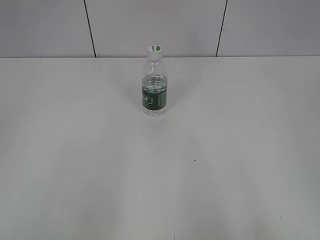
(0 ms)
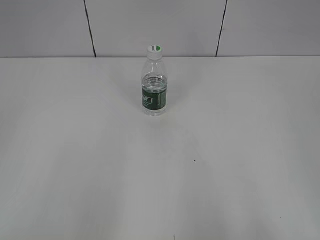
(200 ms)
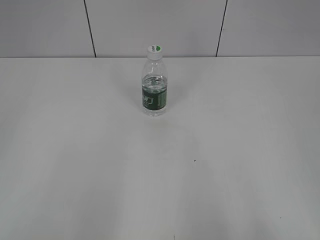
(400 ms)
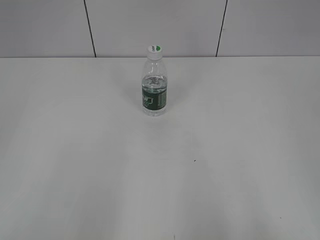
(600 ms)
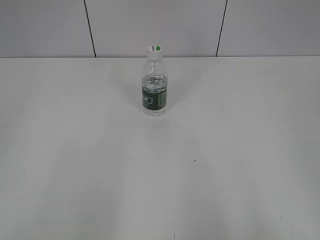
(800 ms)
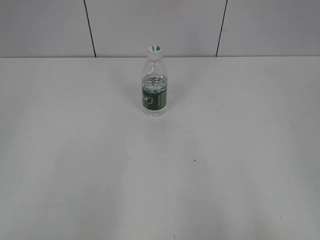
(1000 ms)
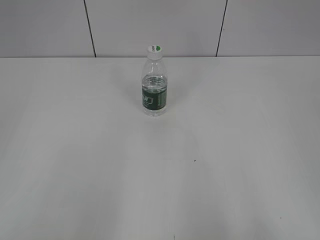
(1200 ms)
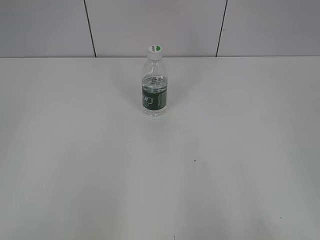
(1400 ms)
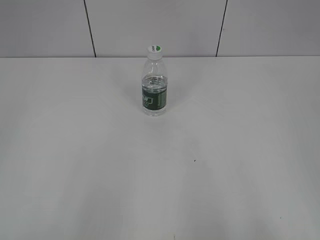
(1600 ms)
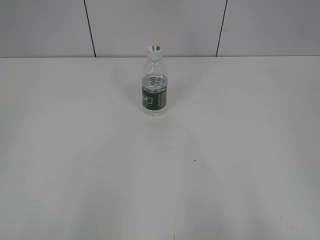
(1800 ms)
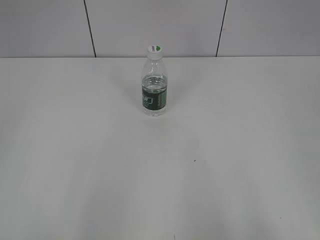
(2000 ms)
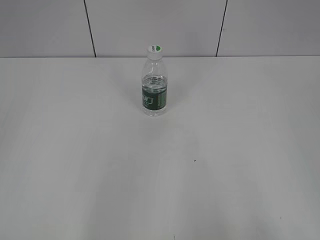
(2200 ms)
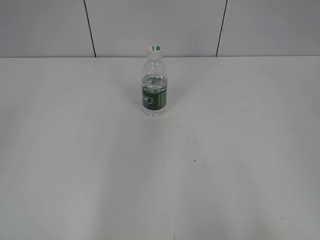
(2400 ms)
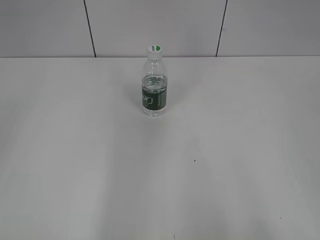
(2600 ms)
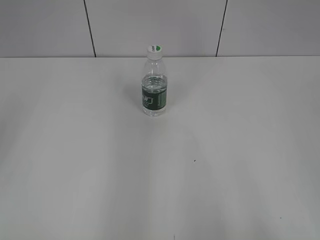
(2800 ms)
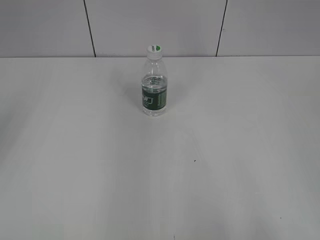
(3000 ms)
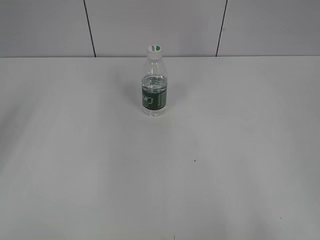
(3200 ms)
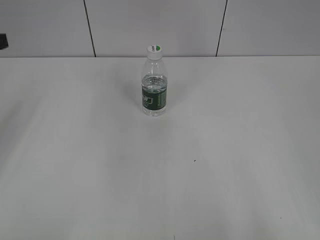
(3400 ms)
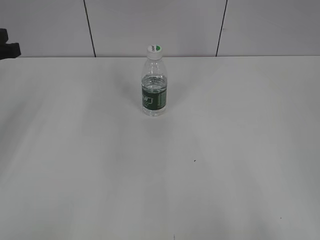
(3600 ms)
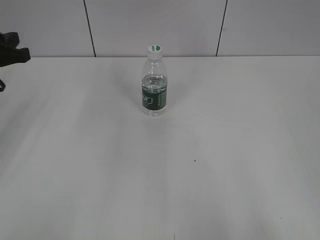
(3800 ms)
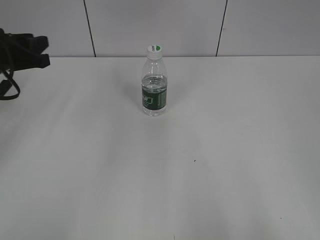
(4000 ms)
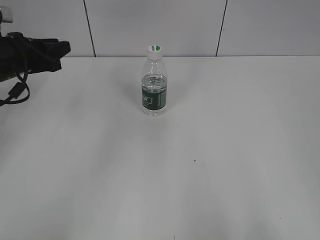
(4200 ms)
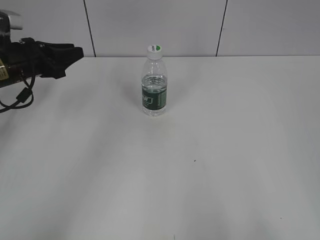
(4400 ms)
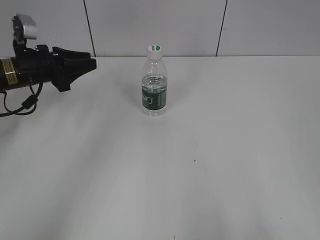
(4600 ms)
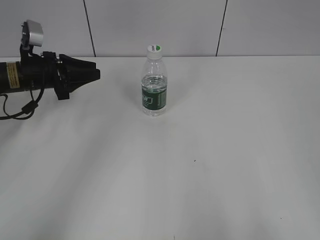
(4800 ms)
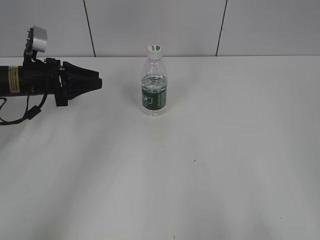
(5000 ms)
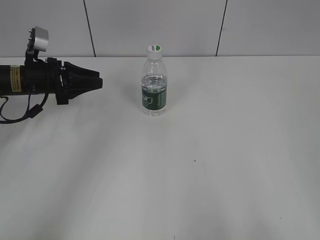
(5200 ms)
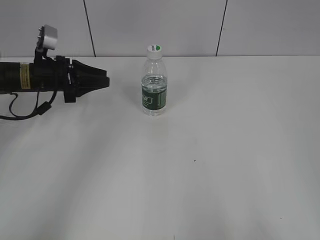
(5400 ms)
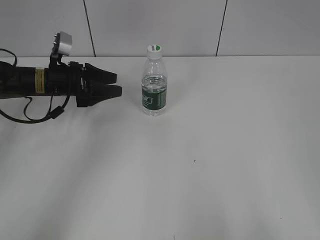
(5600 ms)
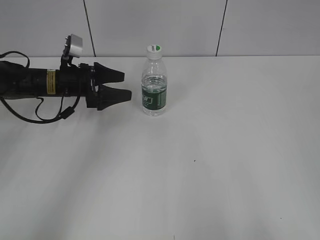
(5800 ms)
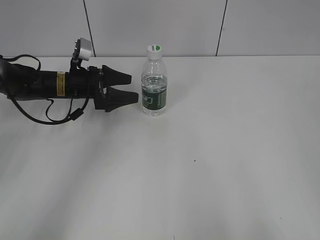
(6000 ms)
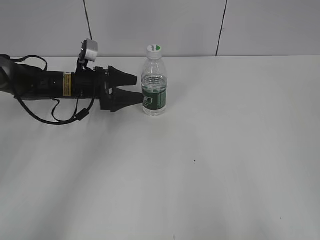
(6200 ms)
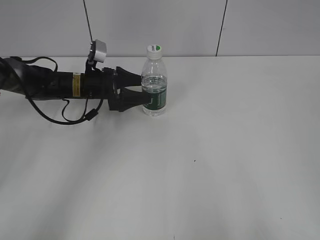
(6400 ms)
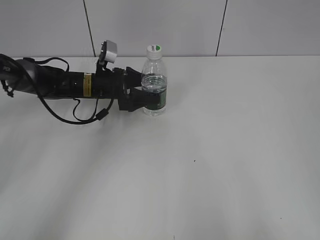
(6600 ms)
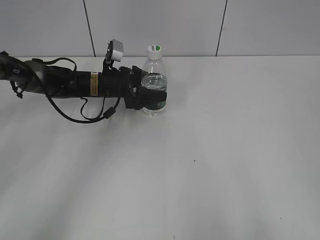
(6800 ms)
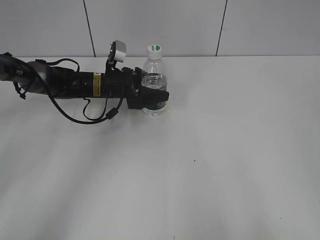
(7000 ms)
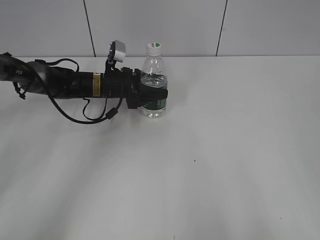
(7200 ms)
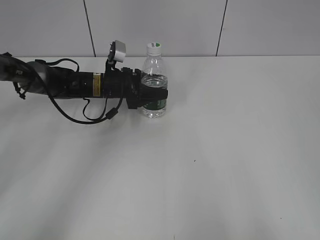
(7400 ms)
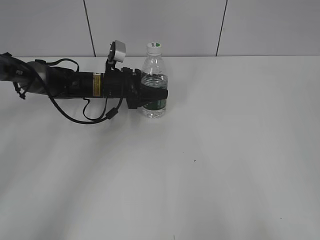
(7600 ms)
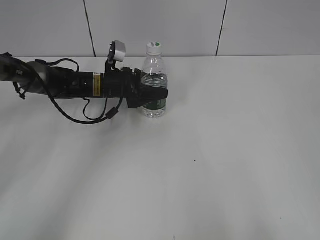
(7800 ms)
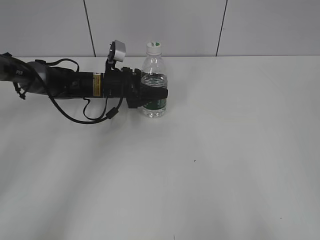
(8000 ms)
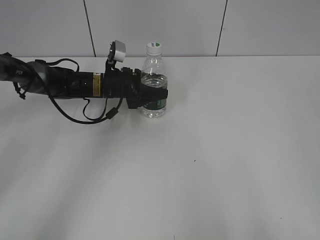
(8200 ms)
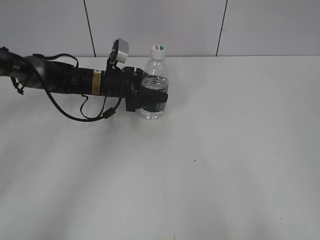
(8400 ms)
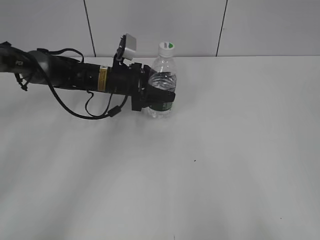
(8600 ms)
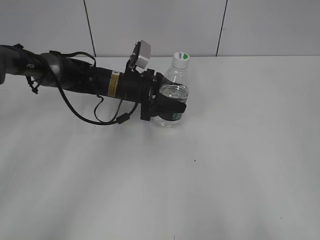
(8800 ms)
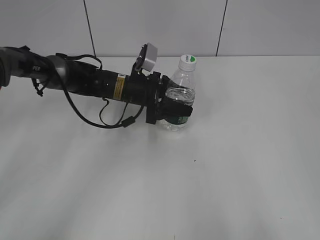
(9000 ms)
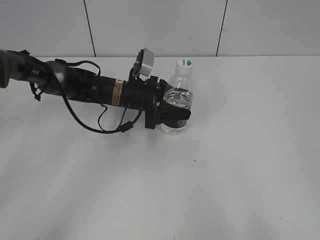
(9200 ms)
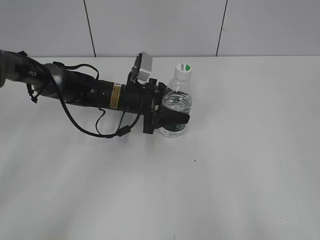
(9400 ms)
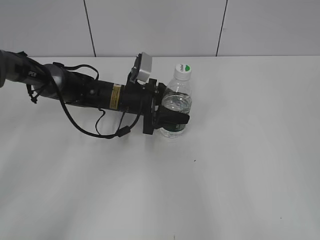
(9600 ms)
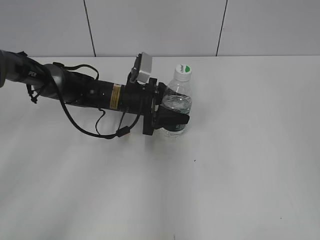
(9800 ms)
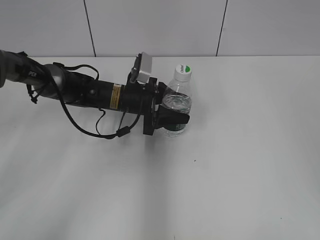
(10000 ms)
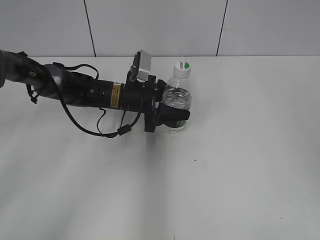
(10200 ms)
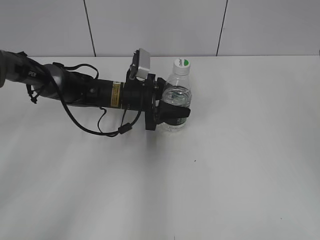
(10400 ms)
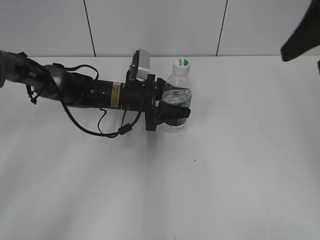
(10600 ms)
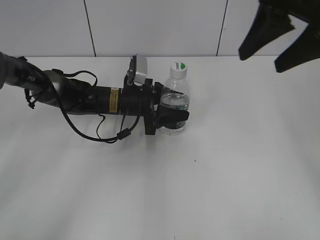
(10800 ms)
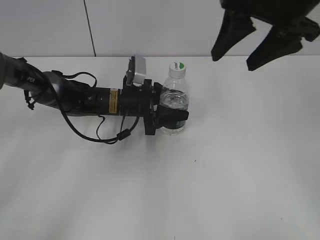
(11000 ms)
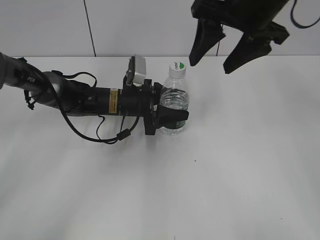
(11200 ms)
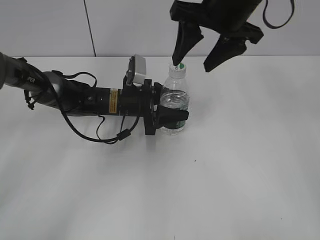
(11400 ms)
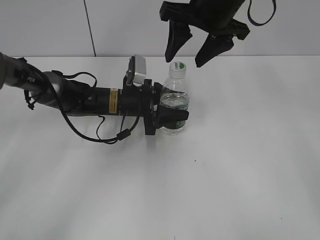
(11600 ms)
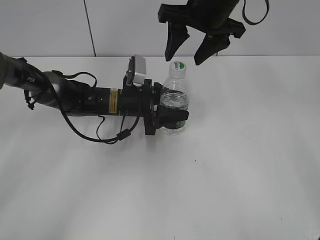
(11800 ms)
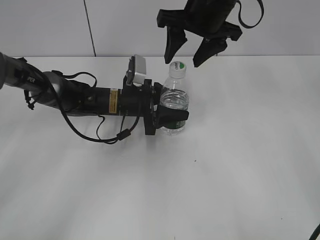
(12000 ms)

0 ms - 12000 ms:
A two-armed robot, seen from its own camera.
Step, 0 ms - 7200 ms: Grasp the bottle and move it to the center of the table with the left gripper.
Step, 7400 ms - 11800 ms: Lift the bottle and move it to the center of the table with the left gripper.
3000 ms - 4400 ms: The left gripper heads forward and downward, covering some 25 cm.
4400 ms - 6000 ms: The left gripper moves to the right, downward and forward, about 10 cm, and opens.
6000 ms - 7600 ms: The left gripper is displaced to the right by roughly 5 cm, and closes its fingers.
7600 ms - 9000 ms: The left gripper moves to the right, about 5 cm.
9000 ms - 10400 ms: The right gripper shifts some 25 cm forward.
10400 ms - 12000 ms: The right gripper travels to the left, forward and downward by some 25 cm.

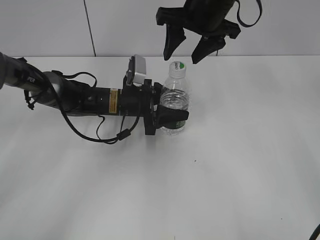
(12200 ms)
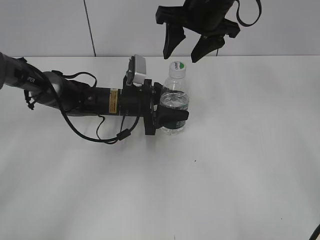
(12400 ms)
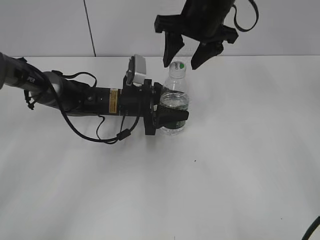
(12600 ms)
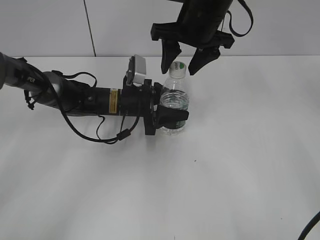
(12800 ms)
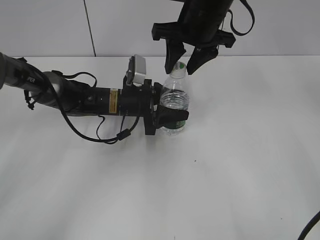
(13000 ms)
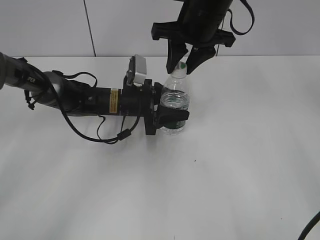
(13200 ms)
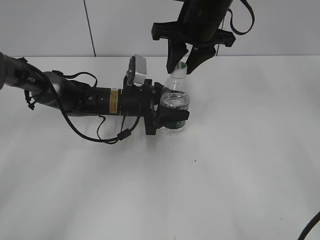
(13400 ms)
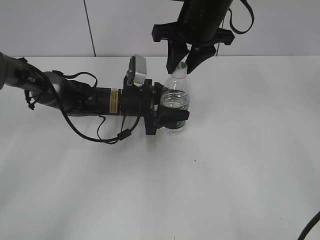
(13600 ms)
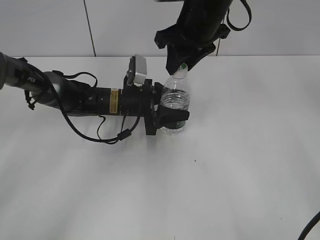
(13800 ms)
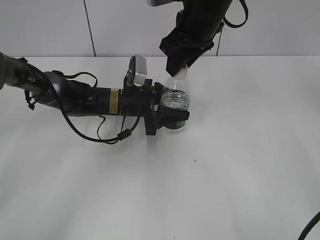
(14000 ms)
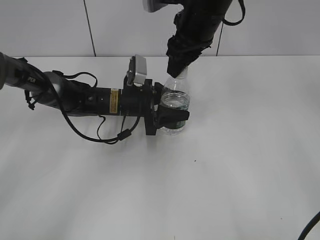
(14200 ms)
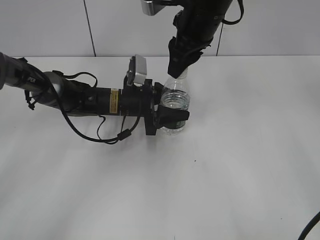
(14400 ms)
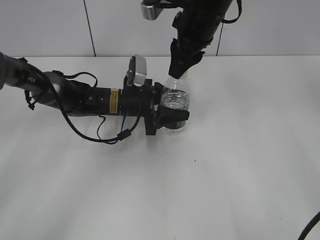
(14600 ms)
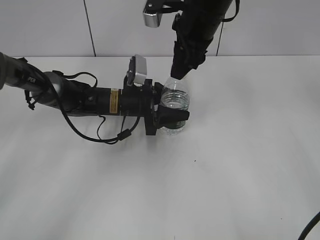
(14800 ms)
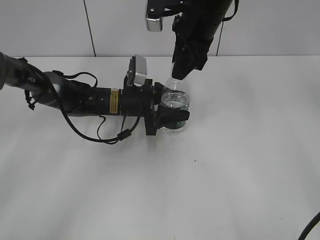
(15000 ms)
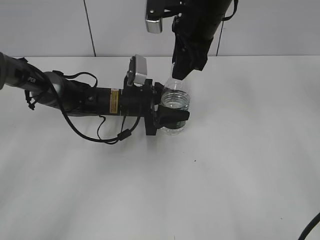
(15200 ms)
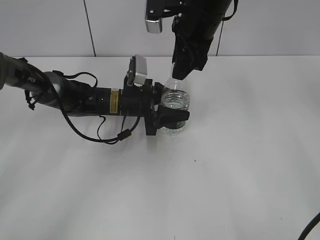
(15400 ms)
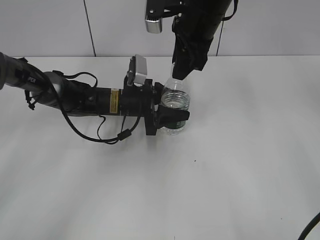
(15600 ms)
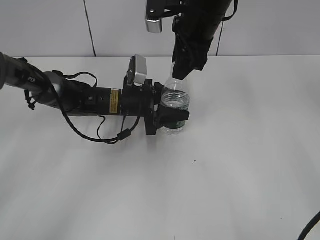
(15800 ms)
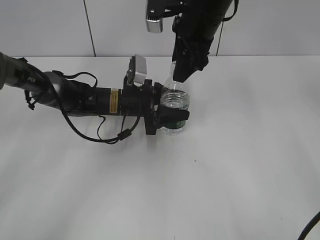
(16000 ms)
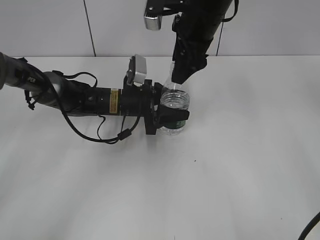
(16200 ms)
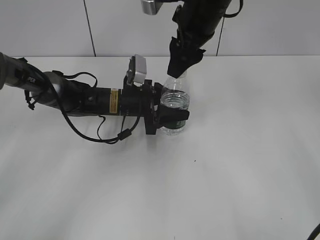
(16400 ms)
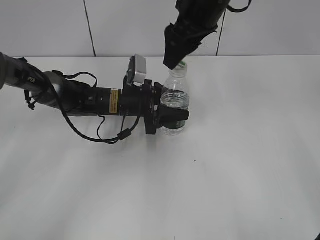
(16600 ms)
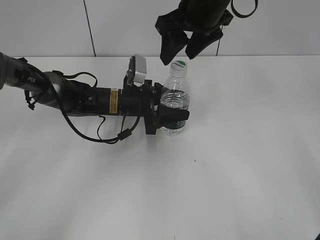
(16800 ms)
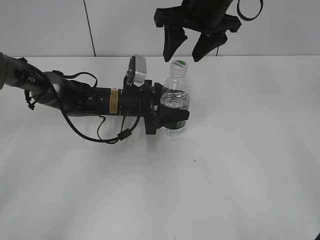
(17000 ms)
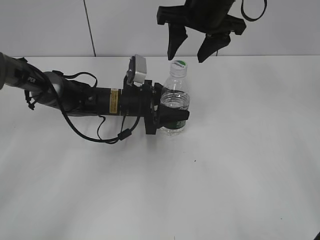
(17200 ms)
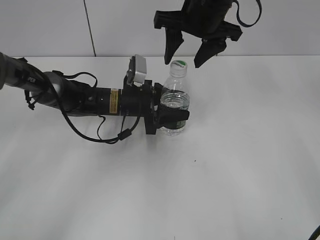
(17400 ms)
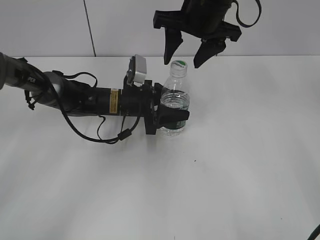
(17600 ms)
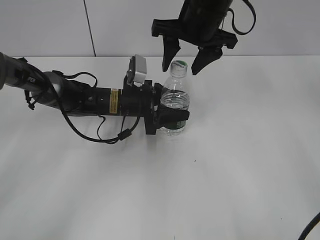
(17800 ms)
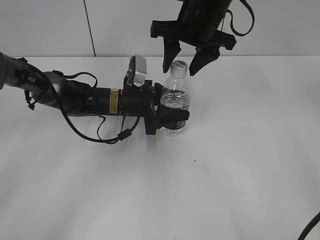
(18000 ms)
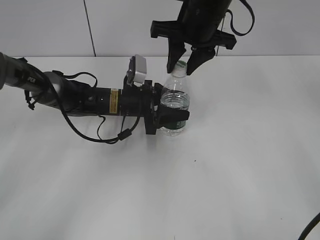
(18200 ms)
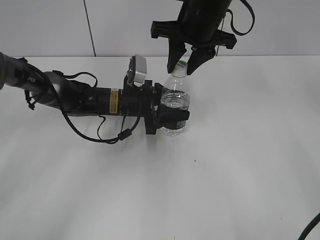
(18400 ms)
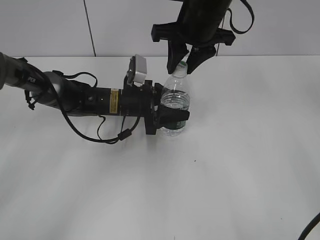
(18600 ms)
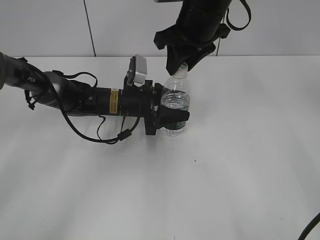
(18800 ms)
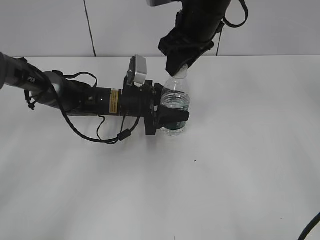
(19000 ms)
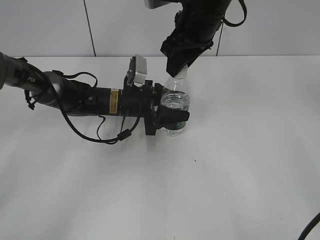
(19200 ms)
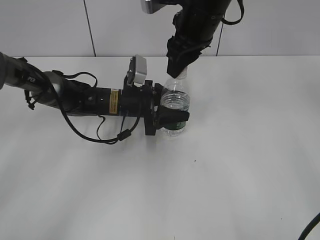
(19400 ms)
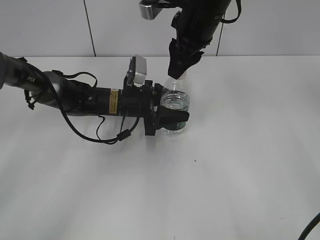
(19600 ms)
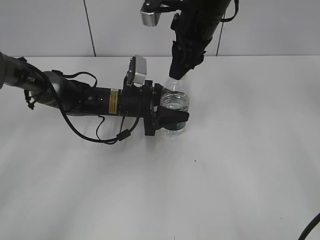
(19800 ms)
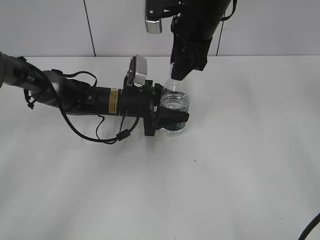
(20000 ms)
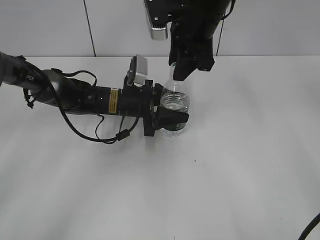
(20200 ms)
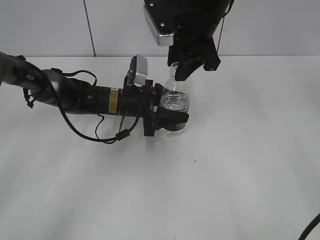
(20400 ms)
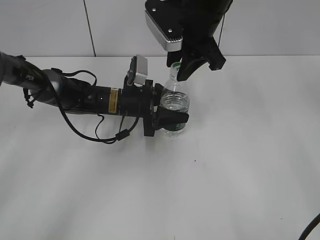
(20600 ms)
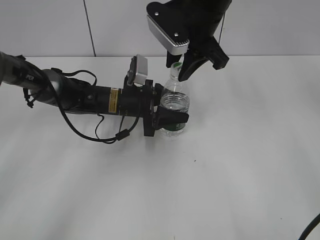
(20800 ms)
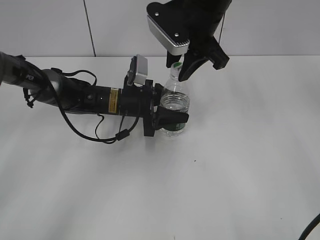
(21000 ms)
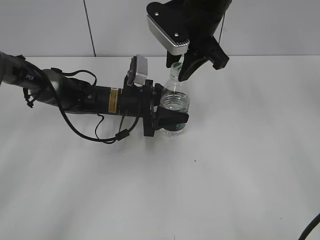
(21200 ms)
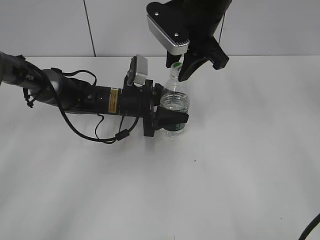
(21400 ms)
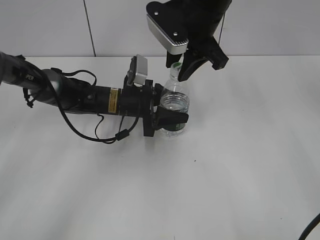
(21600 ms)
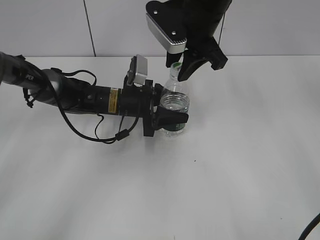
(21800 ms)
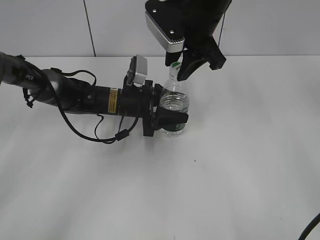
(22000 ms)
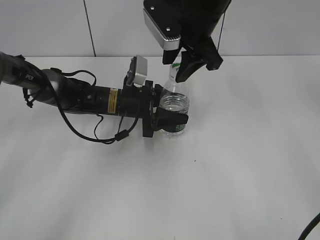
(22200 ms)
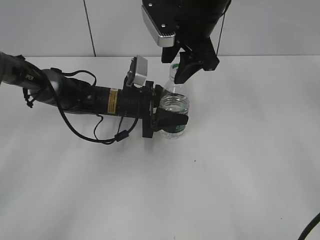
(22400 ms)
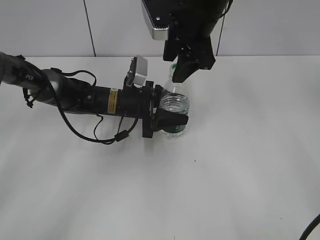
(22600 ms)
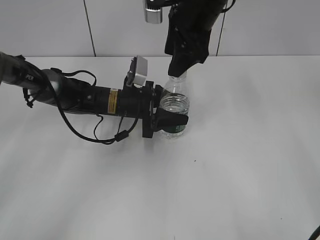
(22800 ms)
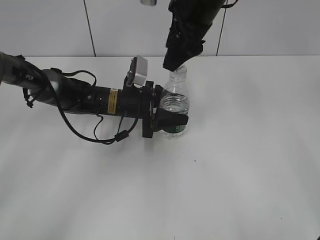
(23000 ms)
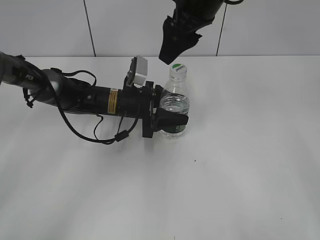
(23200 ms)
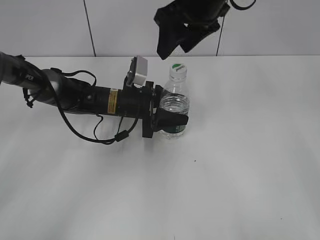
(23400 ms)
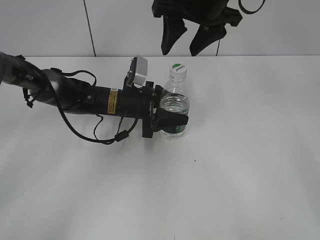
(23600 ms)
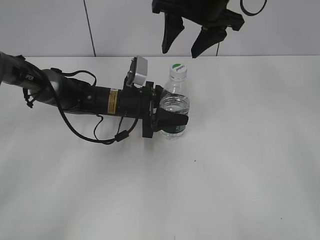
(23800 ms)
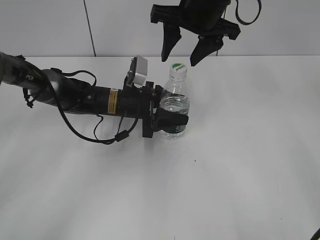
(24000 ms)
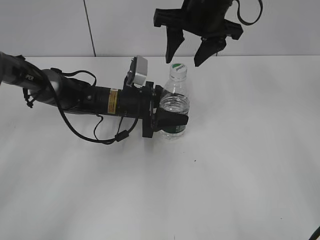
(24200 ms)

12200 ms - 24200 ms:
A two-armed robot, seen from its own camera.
12200 ms - 13800 ms: The right gripper closes up.
15200 ms - 16600 ms: The right gripper opens.
16600 ms - 18200 ms: The right gripper closes up.
21200 ms - 22600 ms: The right gripper opens up.
